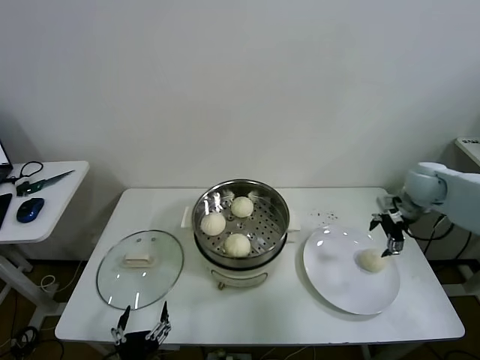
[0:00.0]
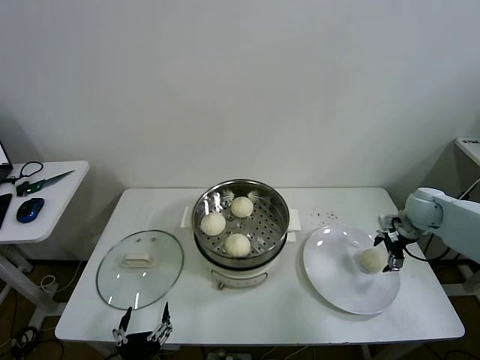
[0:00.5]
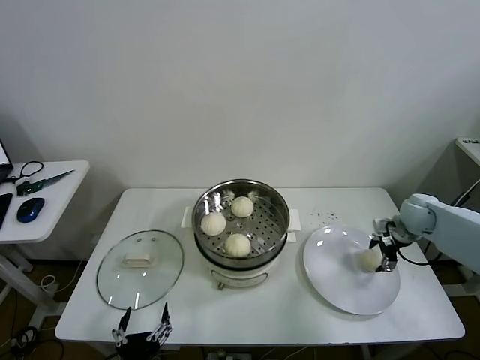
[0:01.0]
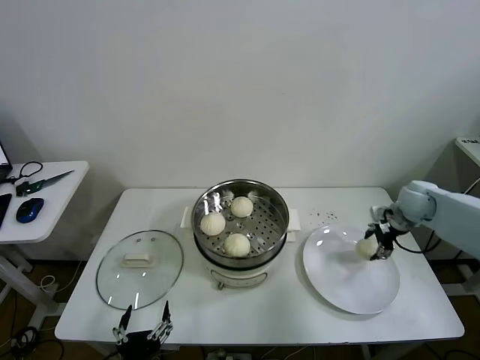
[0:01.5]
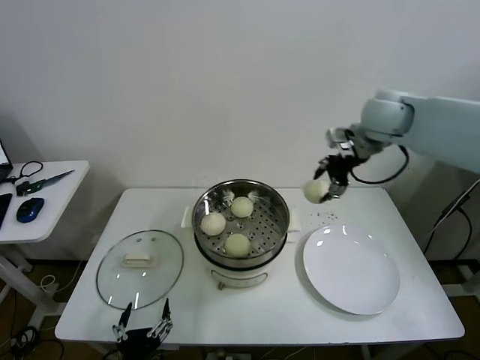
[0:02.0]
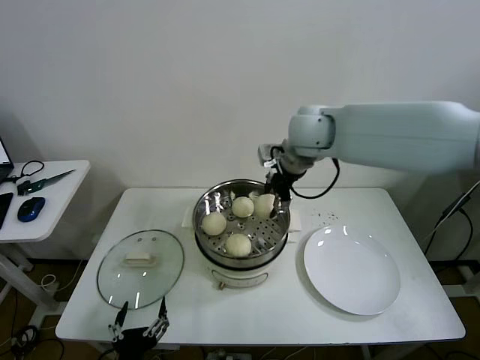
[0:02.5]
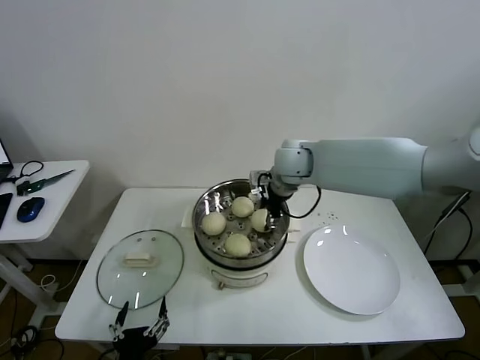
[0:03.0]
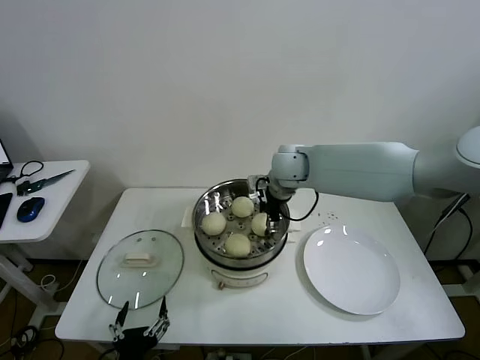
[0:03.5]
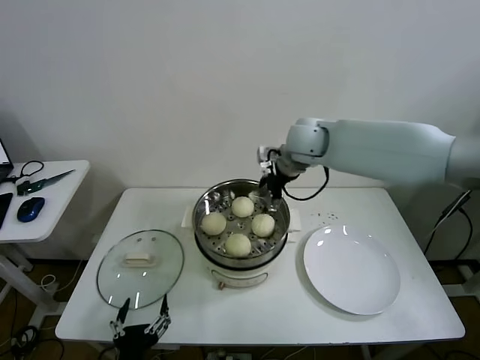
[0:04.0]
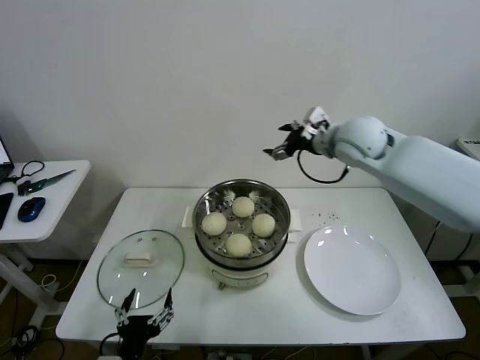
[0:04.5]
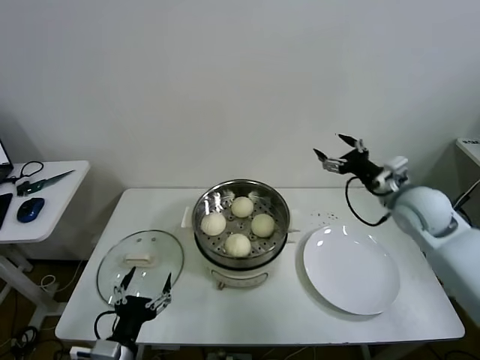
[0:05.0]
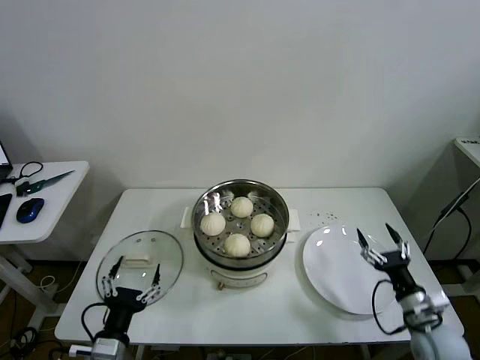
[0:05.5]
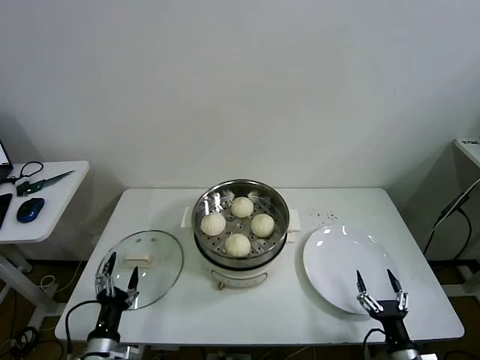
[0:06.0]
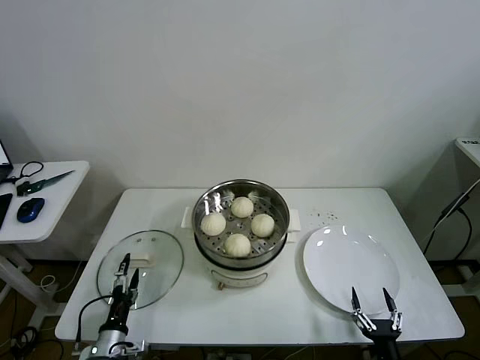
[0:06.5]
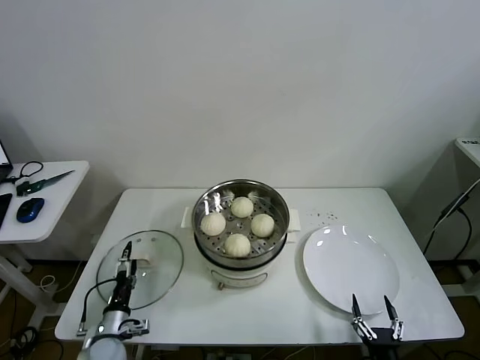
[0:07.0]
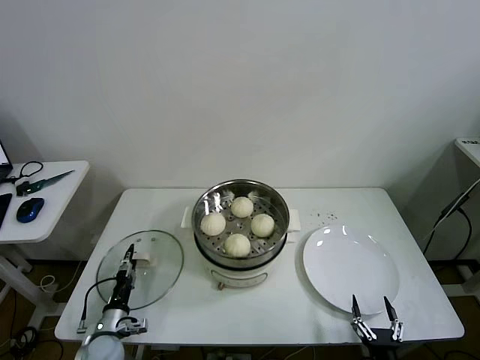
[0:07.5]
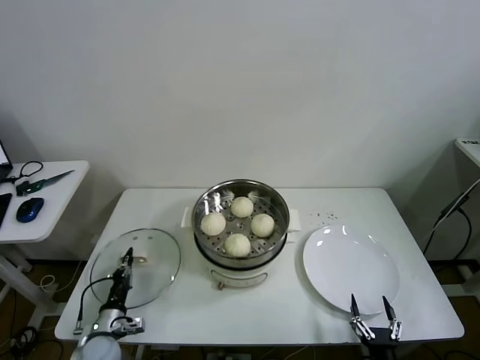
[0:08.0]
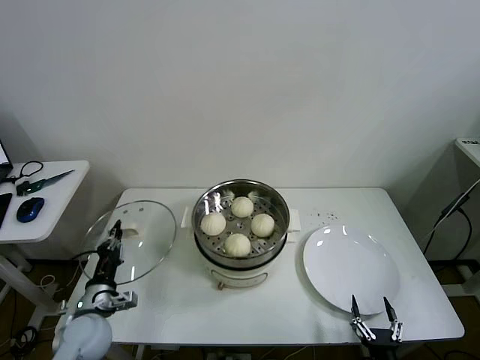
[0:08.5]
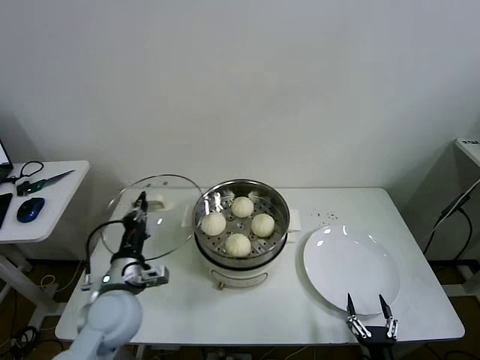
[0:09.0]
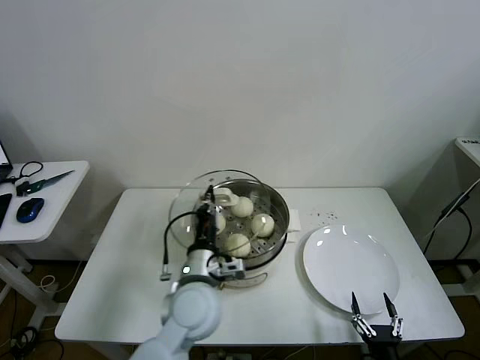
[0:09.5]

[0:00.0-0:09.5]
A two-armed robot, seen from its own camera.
Task of the whole recording: take steamed baozi put them in steamer then cover it.
Step, 0:01.5 to 0:03.5: Place the baozi on the steamer with right gripper.
Step, 0:04.0 to 0:07.5: Grasp the pot lid with left gripper.
0:00.0 to 0:02.0: The right gripper goes about 25 cm upward and to the left, and closes its fingers.
0:02.0 to 0:04.0: The right gripper moves to the left and downward, some 15 cm, and opens.
0:04.0 to 0:05.5: The left gripper moves forward, some 5 cm. The right gripper shifts approximately 50 cm downward, backward and to the right.
0:05.5 to 0:07.5: The left gripper shifts about 20 cm downward, forward and to the left, and closes its fingers, while the right gripper shifts roughly 20 cm backward, downward and to the left.
0:07.5 to 0:09.5: The left gripper shifts about 35 cm to the right and upward, and closes.

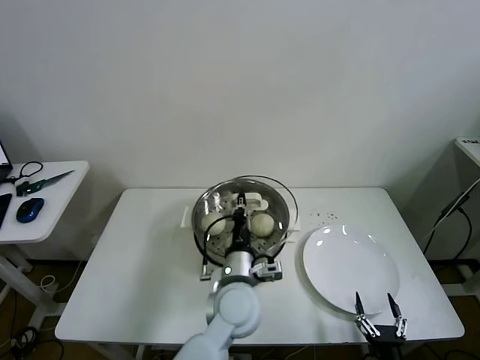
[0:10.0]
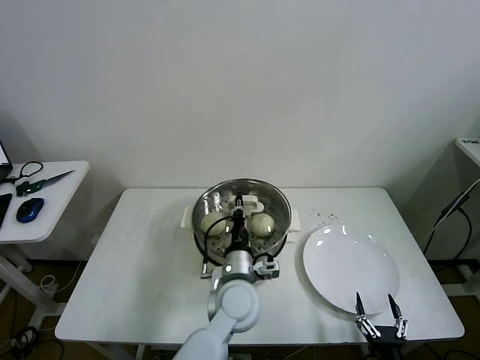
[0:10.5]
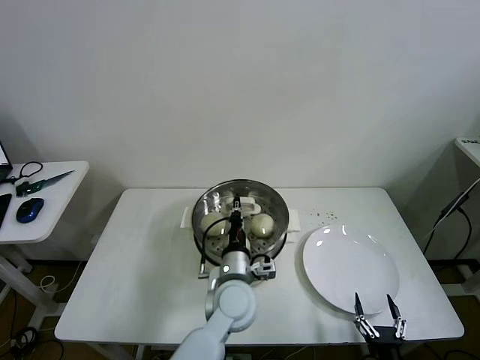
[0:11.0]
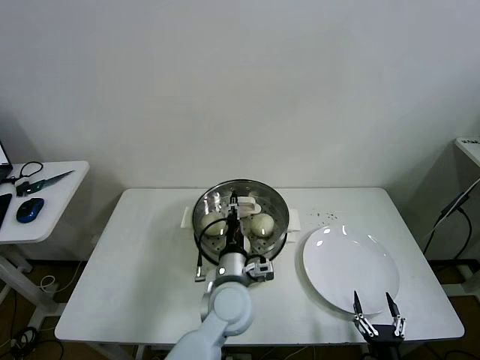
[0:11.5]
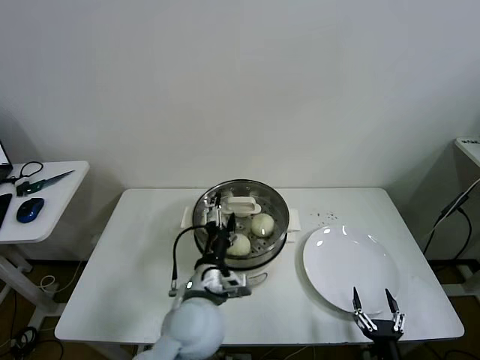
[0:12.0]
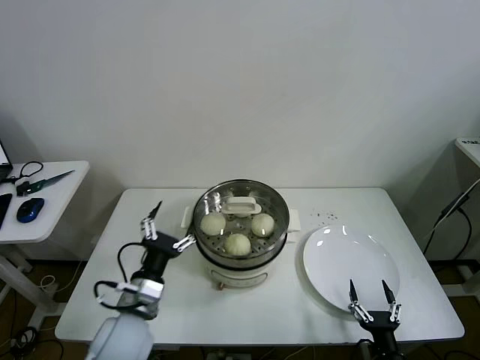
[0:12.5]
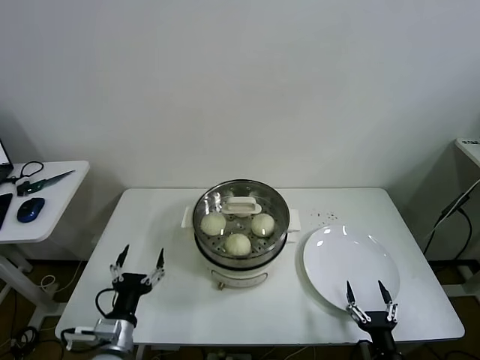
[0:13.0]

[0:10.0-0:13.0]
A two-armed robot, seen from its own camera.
Task of the whole recording: take steamed baozi put them in steamer then cover it.
0:10.0 to 0:11.5: The left gripper opens.
0:11.5 to 0:13.0: The left gripper heads to the left and backward, covering roughly 25 cm, and opens up.

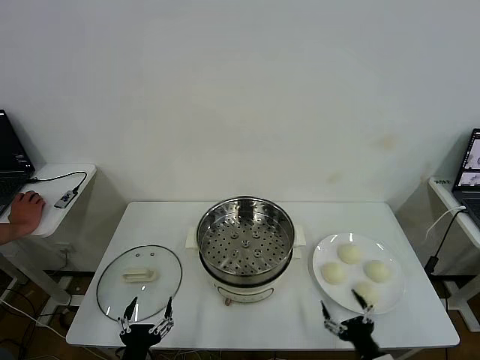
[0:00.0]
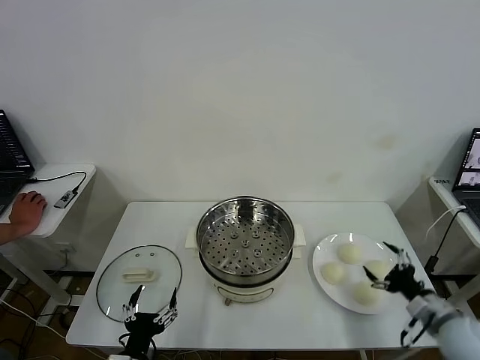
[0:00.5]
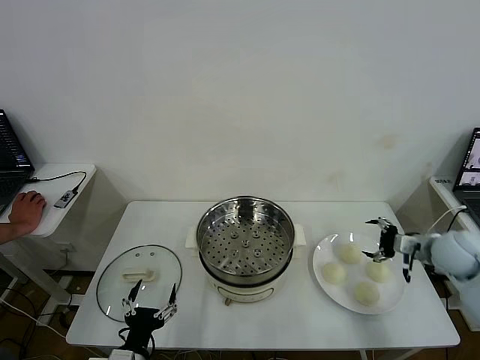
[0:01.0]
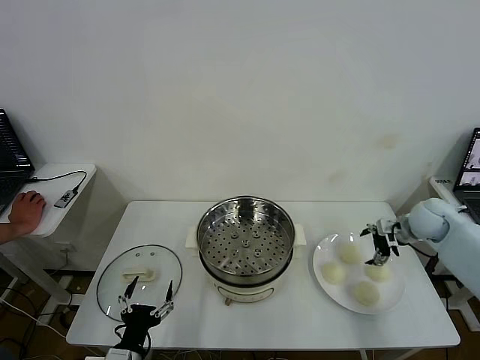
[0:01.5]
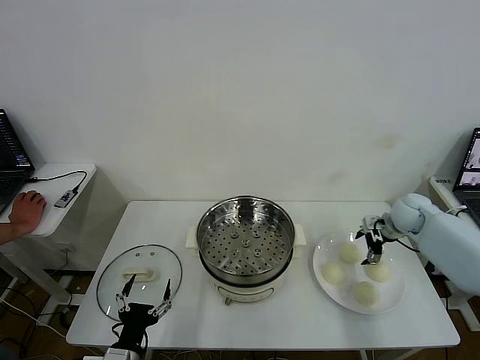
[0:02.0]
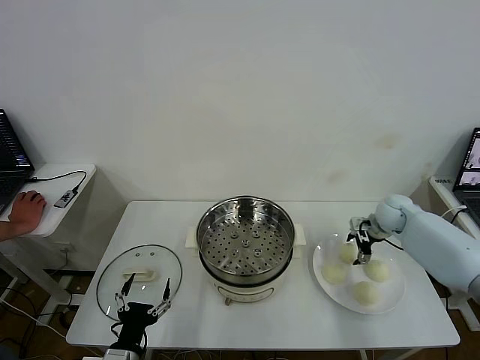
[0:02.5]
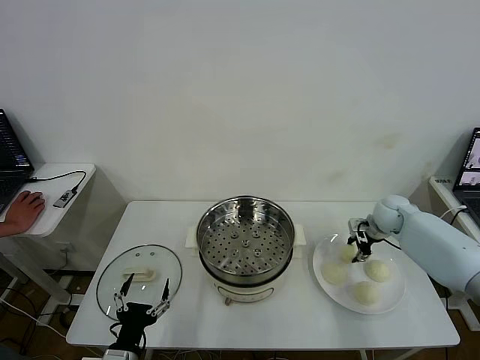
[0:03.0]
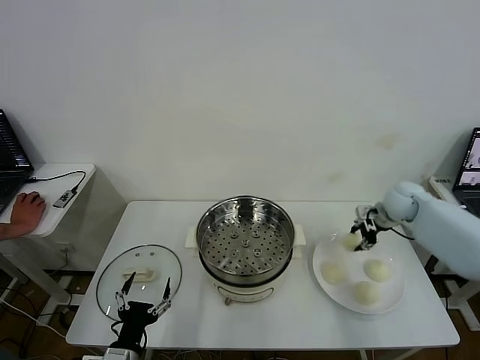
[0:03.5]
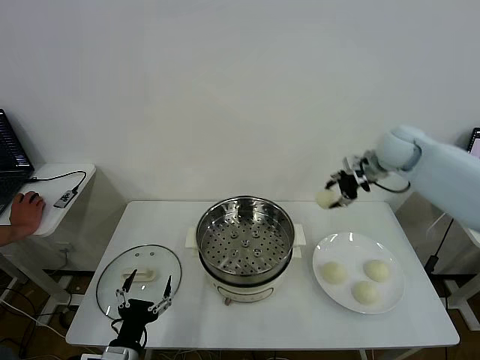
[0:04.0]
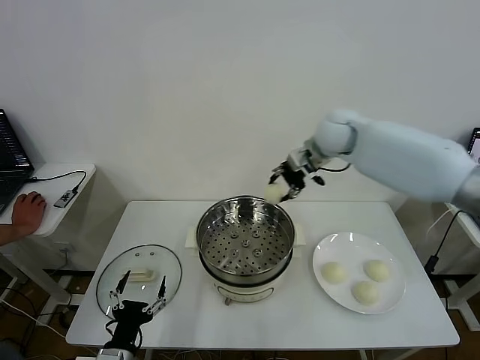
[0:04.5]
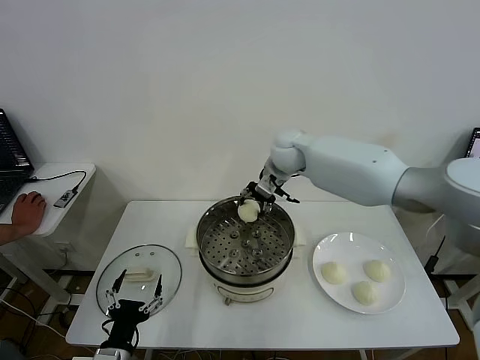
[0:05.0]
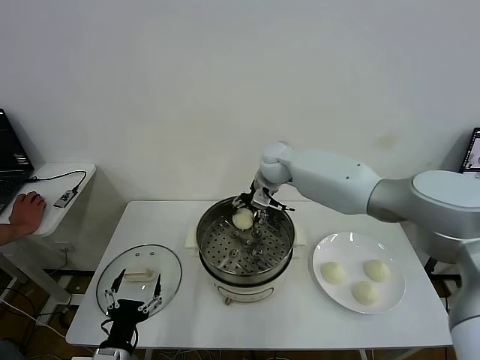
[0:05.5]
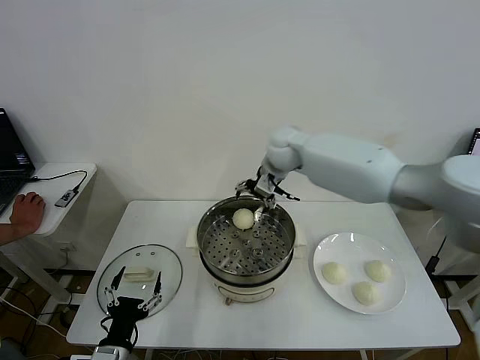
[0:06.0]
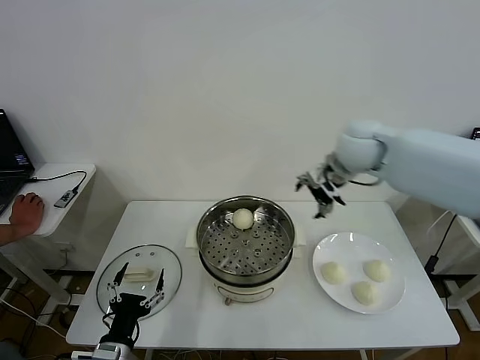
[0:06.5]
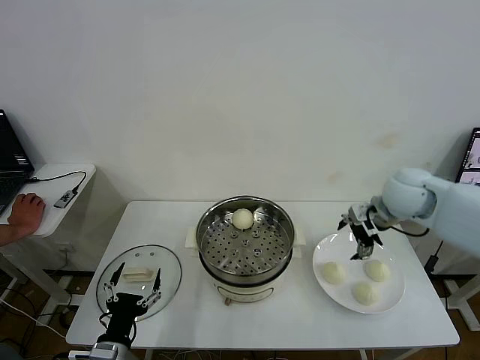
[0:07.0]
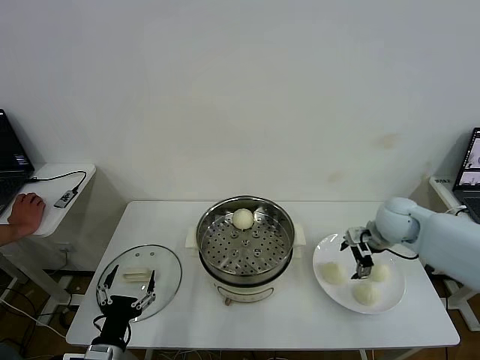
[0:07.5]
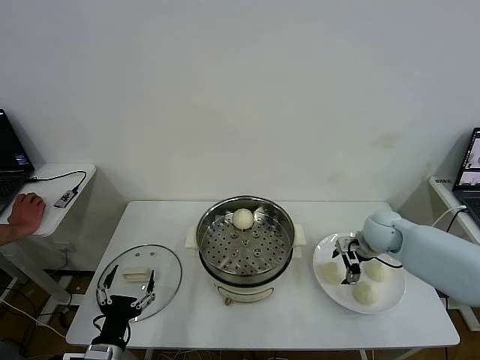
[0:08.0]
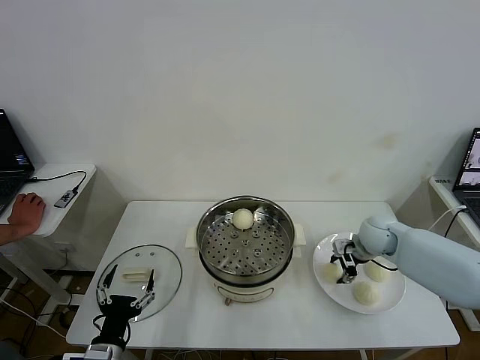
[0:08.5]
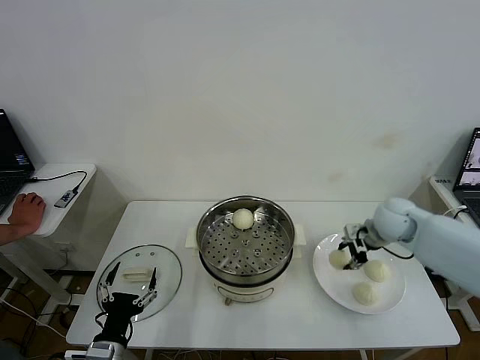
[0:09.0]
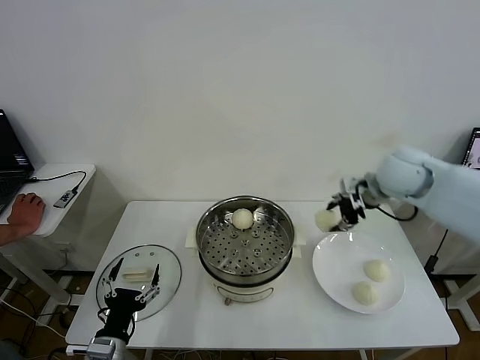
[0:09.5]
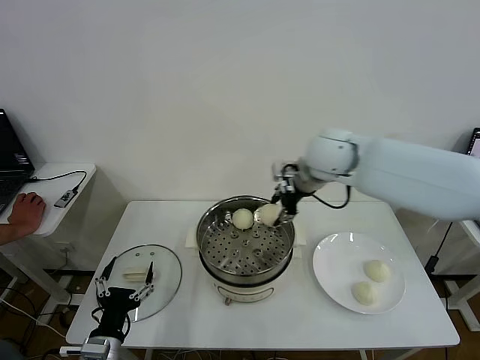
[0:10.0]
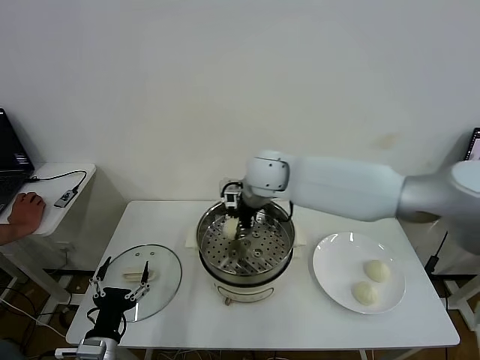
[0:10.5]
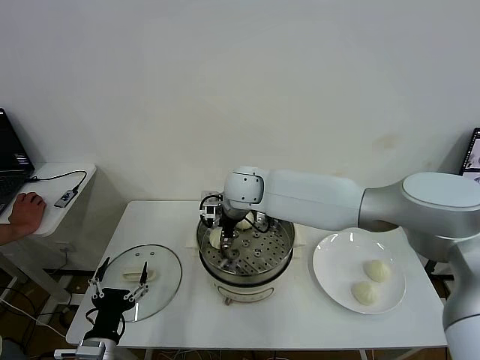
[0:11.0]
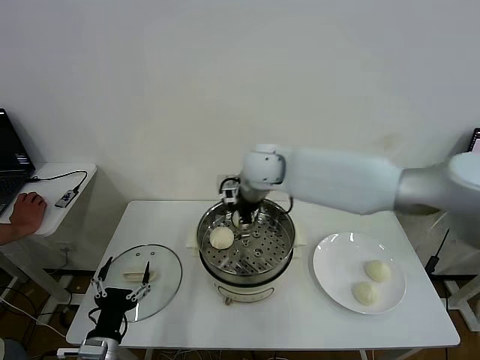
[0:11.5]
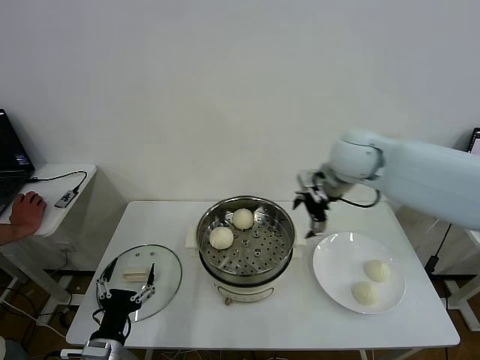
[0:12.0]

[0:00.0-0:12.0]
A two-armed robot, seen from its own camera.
Task of the whole recording: take steamed baozi put them in steamer then cover it.
Step, 0:00.0 to 0:02.5: Grasp the baozi in the plate with right gripper.
Step, 0:03.0 to 0:05.5: Place the baozi on the steamer with right gripper.
Step, 0:06.0 to 0:08.0: Grasp the baozi in the plate with right gripper.
Step, 0:09.0 to 0:11.0: Place the baozi on the steamer with right gripper.
0:02.0 to 0:04.0: The right gripper moves upward and to the left, approximately 25 cm, and closes its fingers.
0:04.0 to 0:06.0: The right gripper heads to the left, covering roughly 20 cm, and opens its fingers.
0:06.0 to 0:08.0: The right gripper shifts about 30 cm to the right, downward and backward.
0:08.0 to 0:10.0: The right gripper goes approximately 30 cm upward and to the left, and closes its fingers.
0:10.0 to 0:12.0: The right gripper travels to the right by approximately 10 cm, and opens its fingers.
